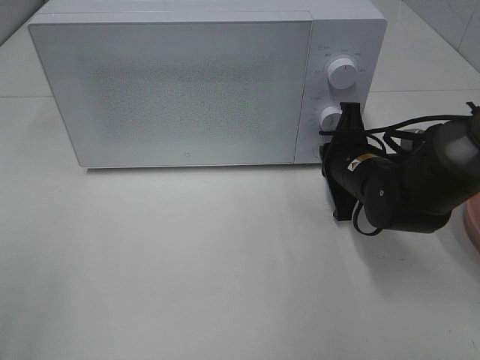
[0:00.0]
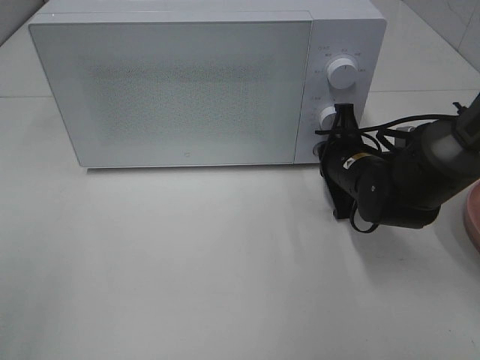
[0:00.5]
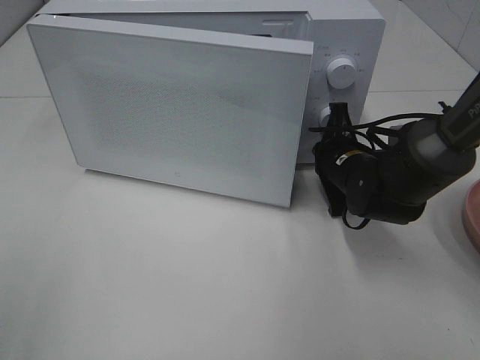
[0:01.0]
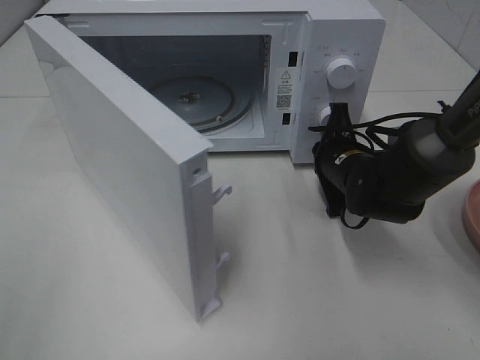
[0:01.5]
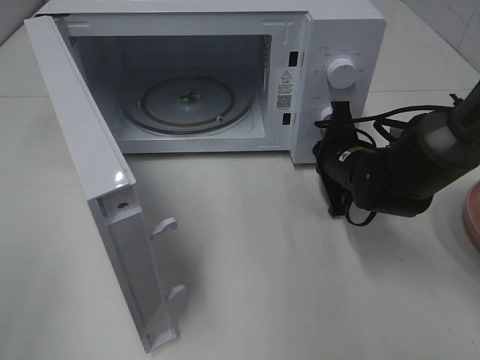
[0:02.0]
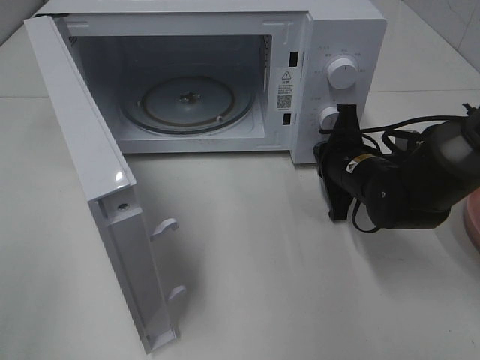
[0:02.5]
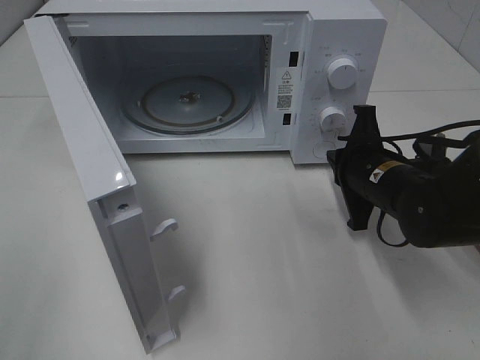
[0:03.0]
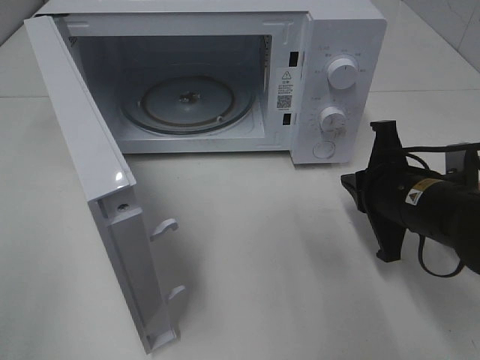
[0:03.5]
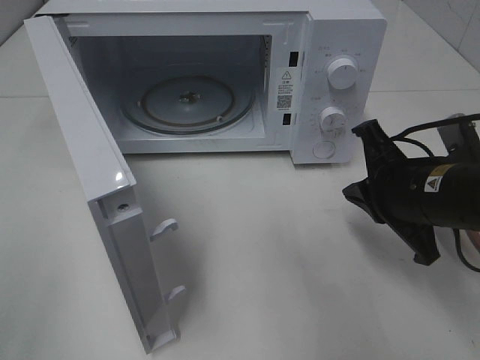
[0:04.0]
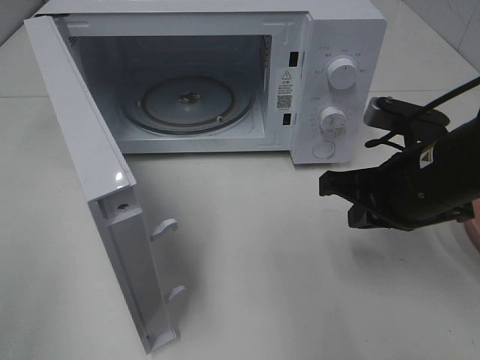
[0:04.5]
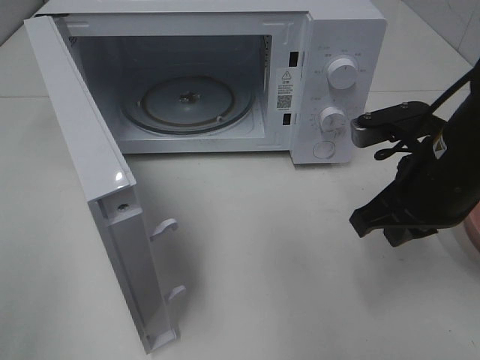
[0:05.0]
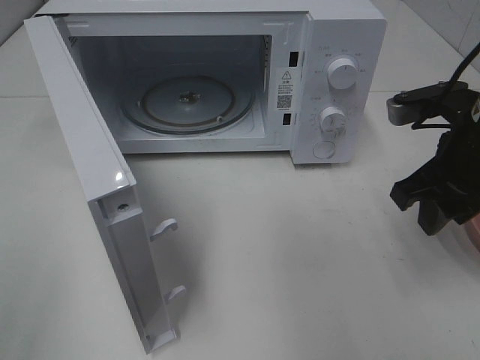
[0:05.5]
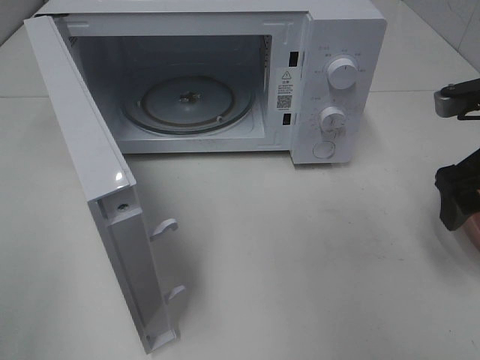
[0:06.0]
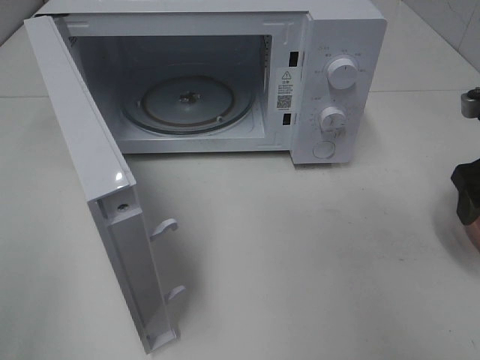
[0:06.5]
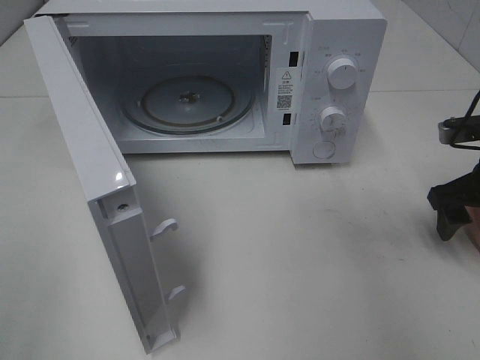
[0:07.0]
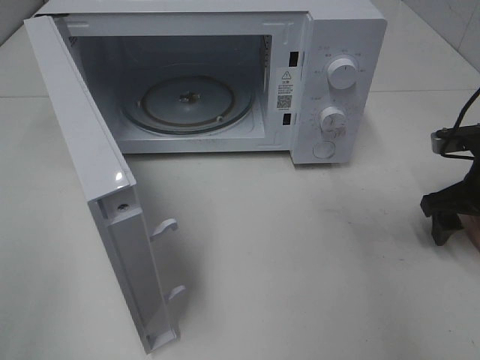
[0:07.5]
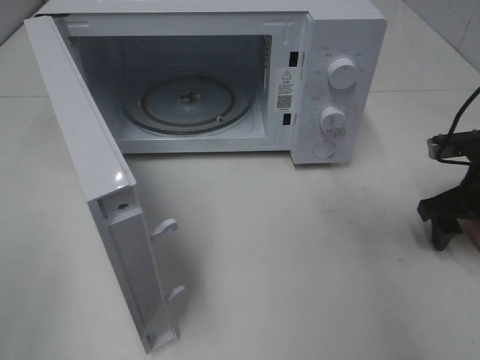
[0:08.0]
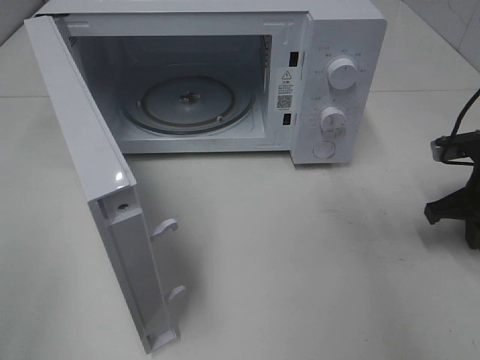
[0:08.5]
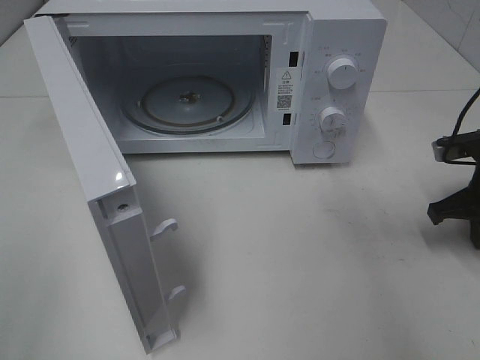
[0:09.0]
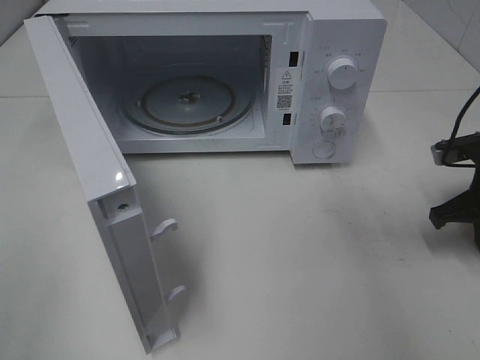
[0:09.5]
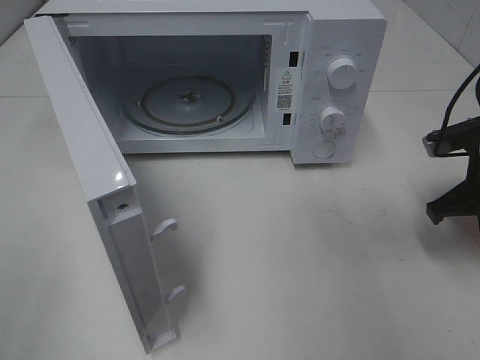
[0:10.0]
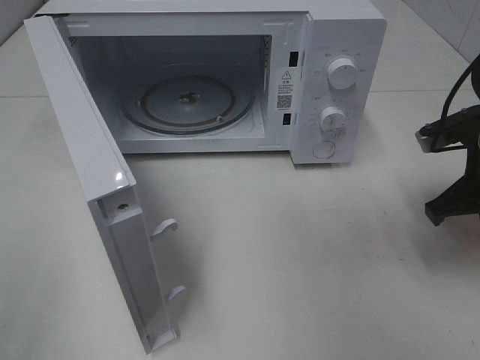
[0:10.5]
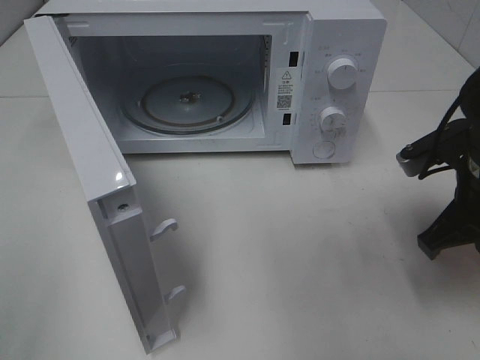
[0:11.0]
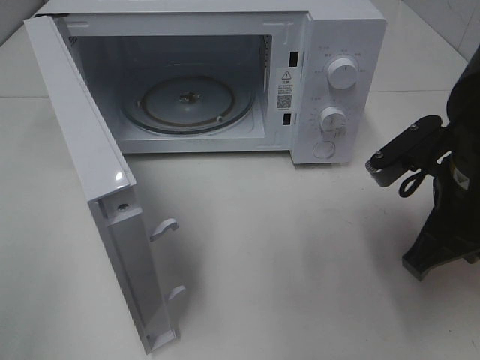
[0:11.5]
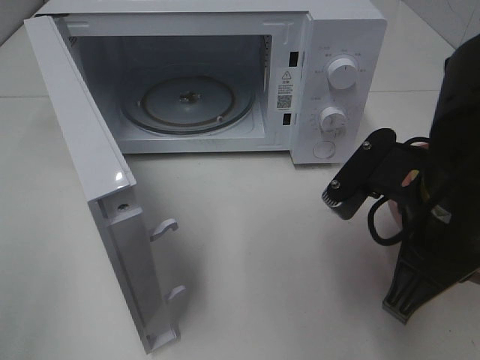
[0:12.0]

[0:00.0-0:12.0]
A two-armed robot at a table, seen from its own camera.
Task of the whole recording: Heat Sandwich.
Step, 0:00.0 to 0:03.0: Right hand: press the switch.
Step, 0:03.5 to 0:08.5: Right hand: grab the plate with the sandwich.
0:02.0 to 0:04.0: The right gripper heads backward and upward, covering some 15 cm.
0:04.0 to 0:06.0: The right gripper moves to the right and upward, some 10 cm, and opens.
0:06.0 to 0:08.0: The right gripper is displaced downward by roughly 10 cm.
0:08.0 to 0:10.0: The right gripper closes.
0:10.0 to 0:12.0: The right gripper goes approximately 20 cm to the left, backward and upward.

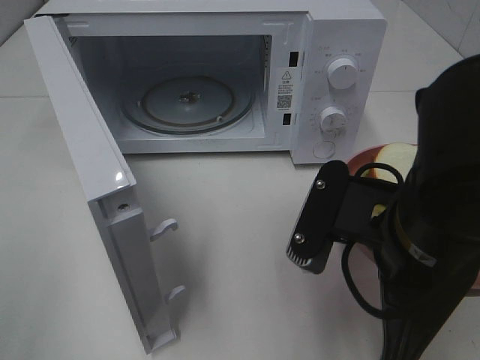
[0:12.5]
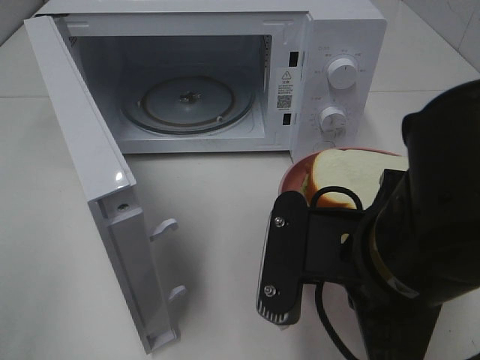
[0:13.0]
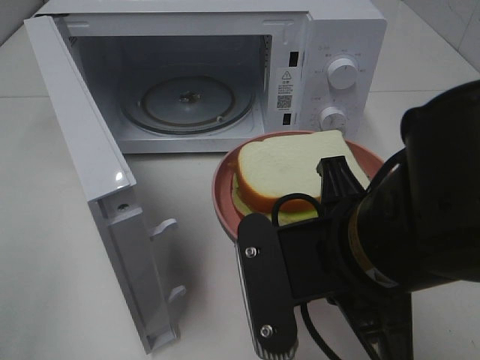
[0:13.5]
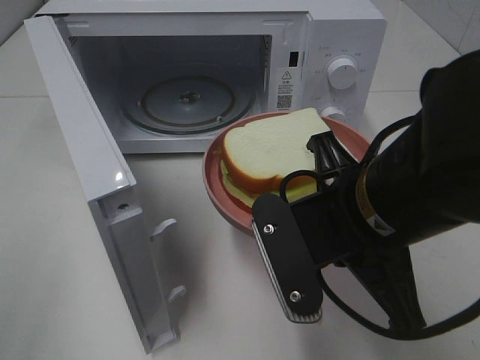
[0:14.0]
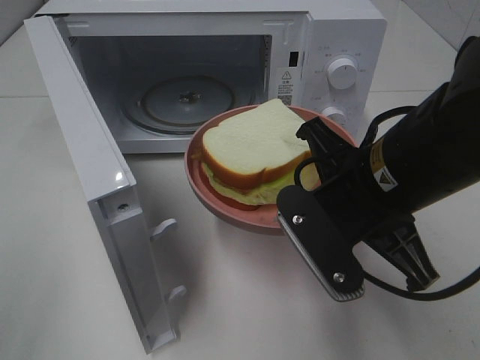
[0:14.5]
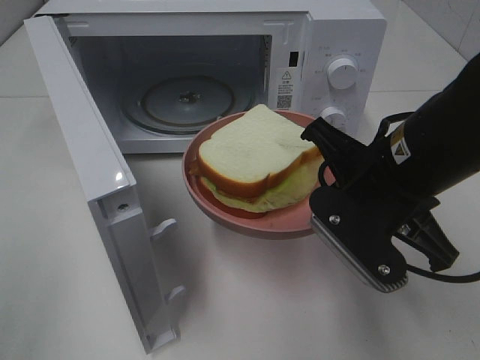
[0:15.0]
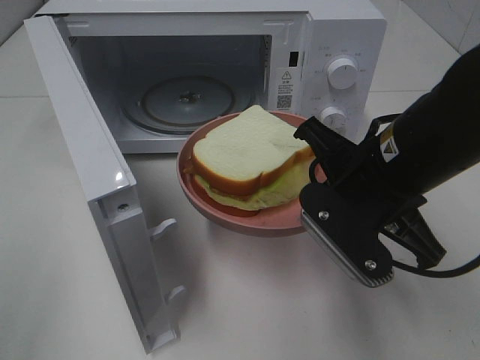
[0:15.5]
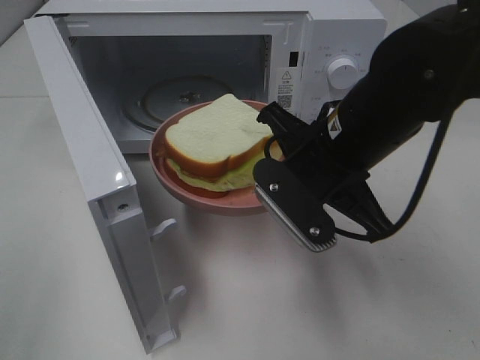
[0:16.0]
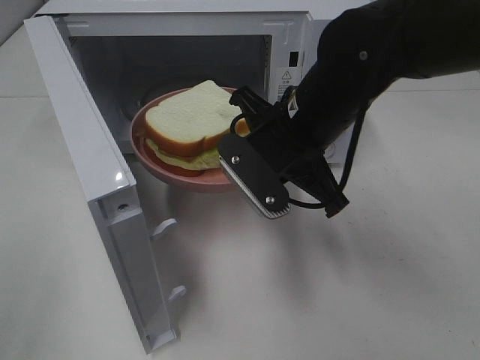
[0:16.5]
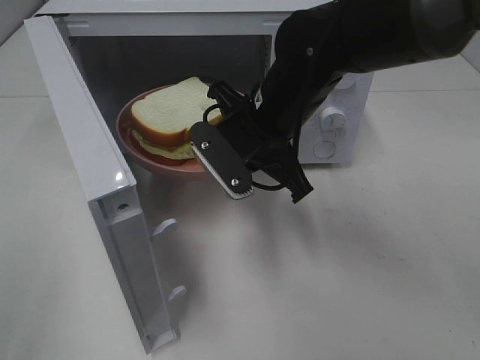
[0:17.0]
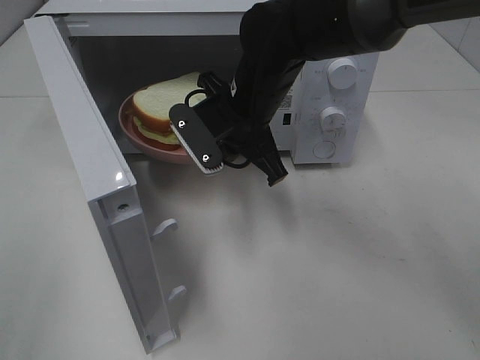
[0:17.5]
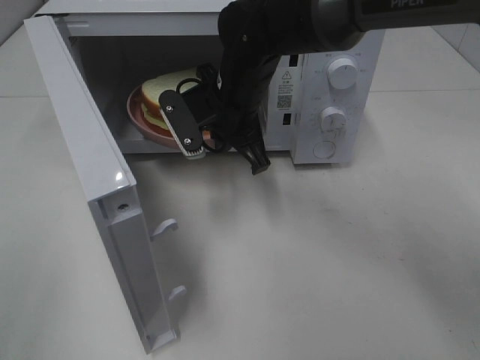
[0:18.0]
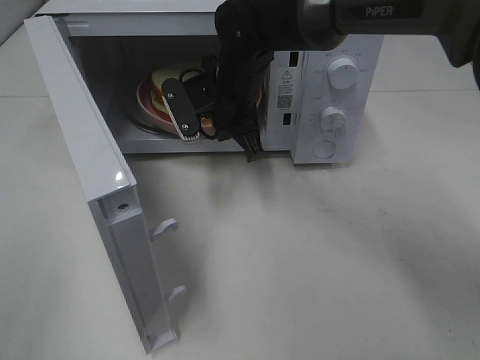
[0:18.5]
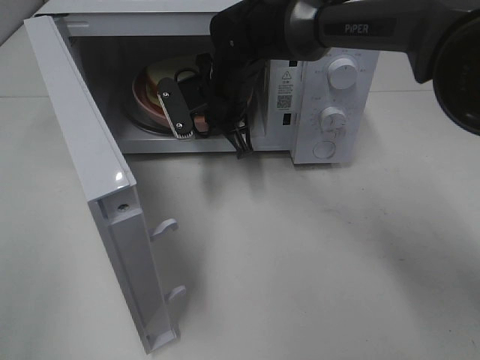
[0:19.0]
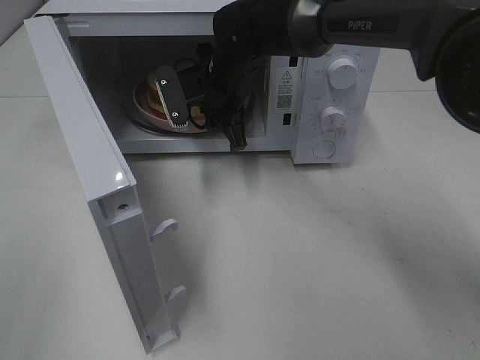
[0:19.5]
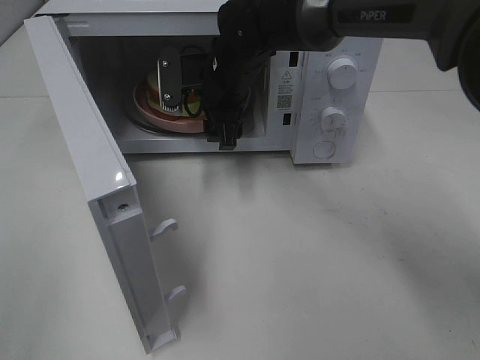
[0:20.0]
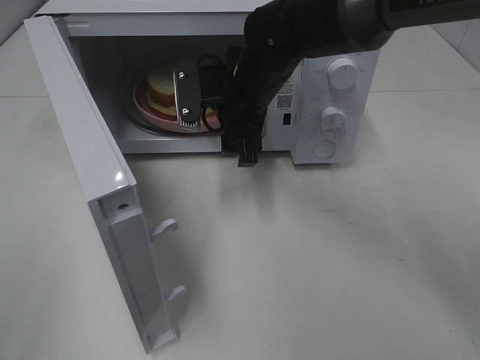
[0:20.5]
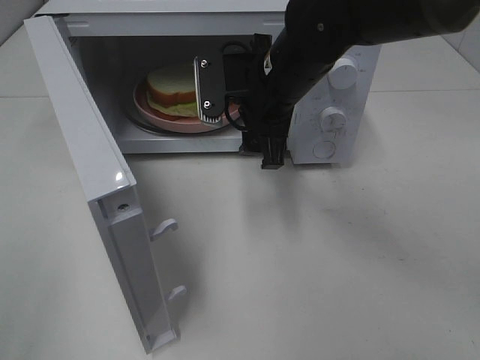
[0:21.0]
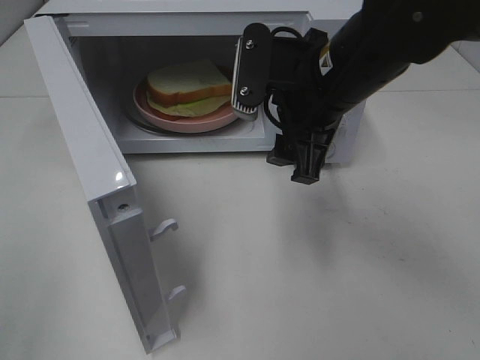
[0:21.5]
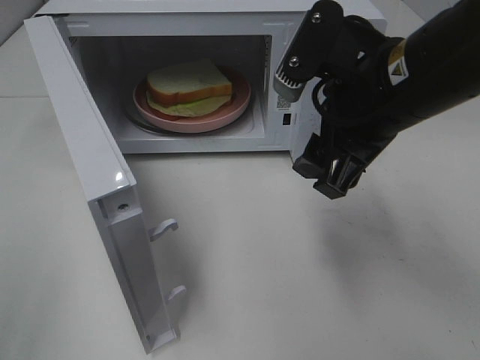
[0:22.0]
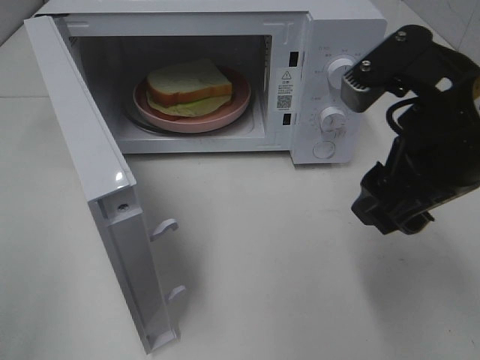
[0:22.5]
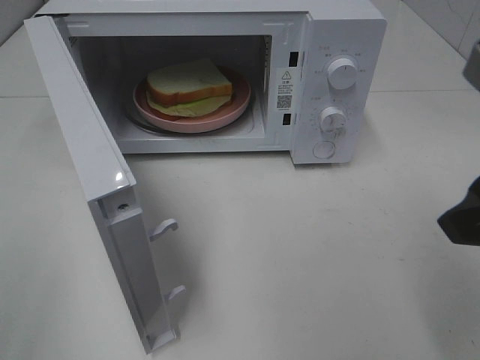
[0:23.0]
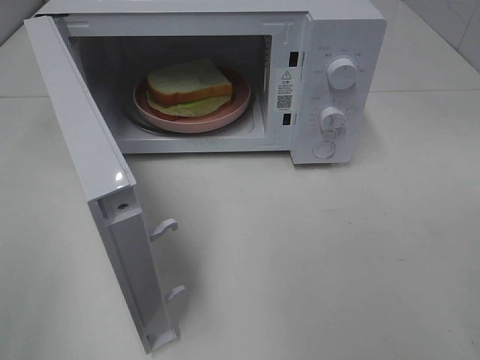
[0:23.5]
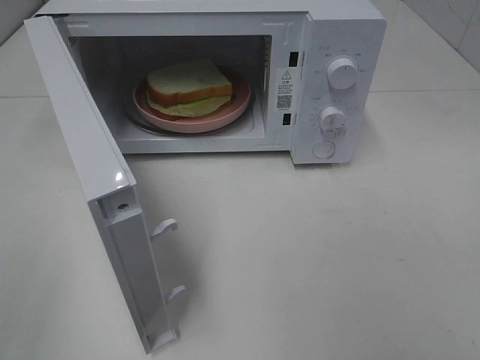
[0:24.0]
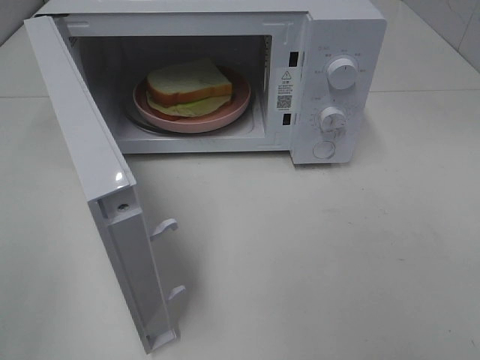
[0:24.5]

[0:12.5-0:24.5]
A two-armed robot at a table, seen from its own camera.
Task of the whole recording: Heat Sandwich.
Step, 0:12.5 to 0:20.0: Right hand: place the plate in the microwave.
0:12.5 to 0:14.5: The right gripper is displaced forward by some 5 cm.
0:14.5 to 0:16.5: The right gripper shifts about 10 cm forward.
0:16.5 to 0:18.5: The right gripper travels forward and to the left by roughly 15 cm.
0:18.5 to 0:20.5: The right gripper opens up.
0:20.5 to 0:22.5: The right gripper heads backward, to the right and upward, covering approximately 25 cm.
0:22.5 to 0:24.5: The right gripper travels backward and to the right by some 20 cm.

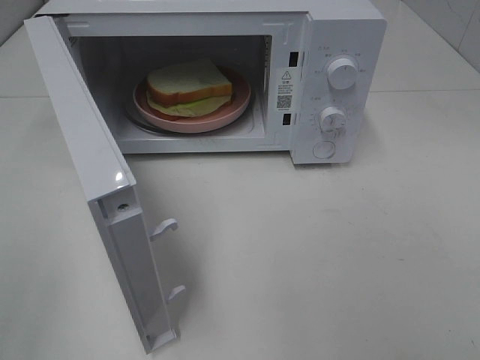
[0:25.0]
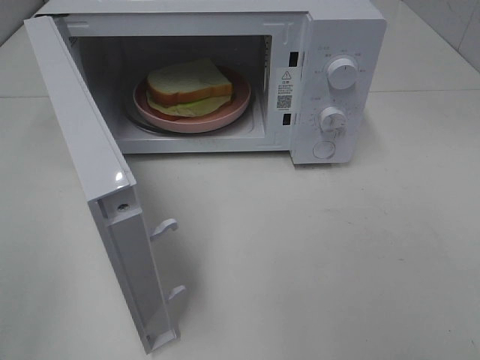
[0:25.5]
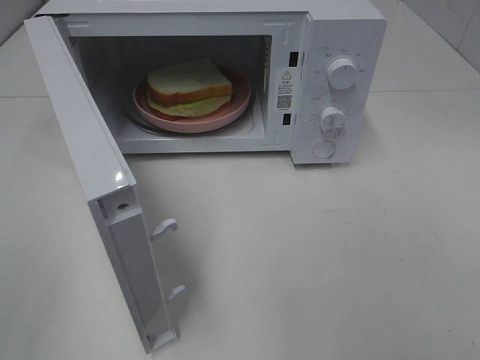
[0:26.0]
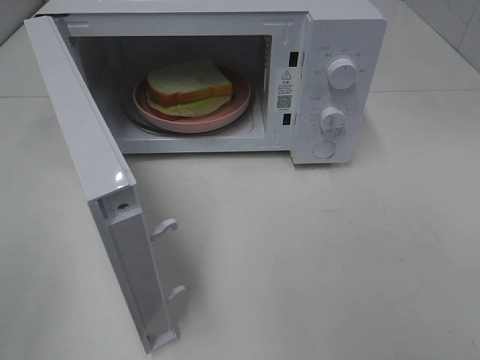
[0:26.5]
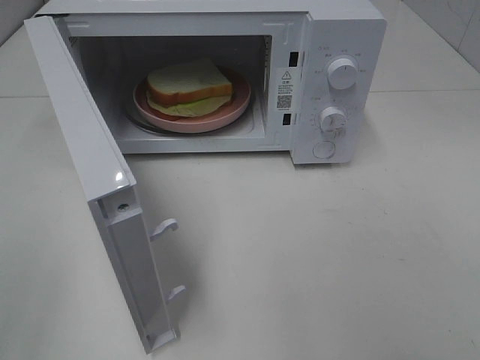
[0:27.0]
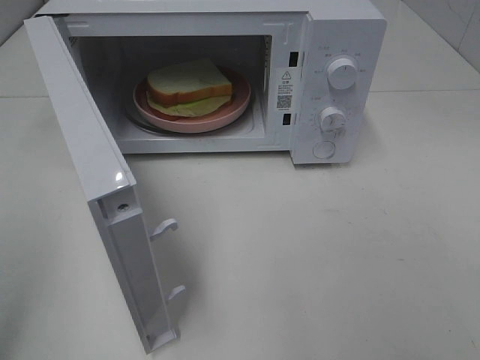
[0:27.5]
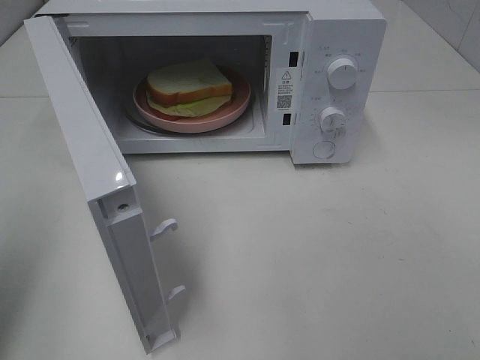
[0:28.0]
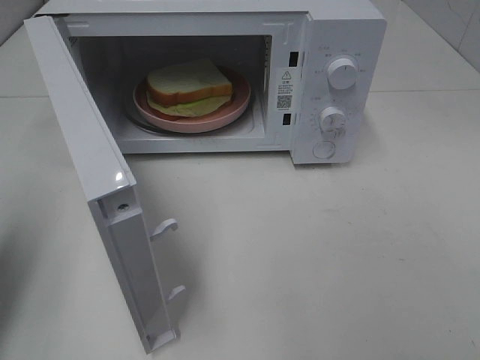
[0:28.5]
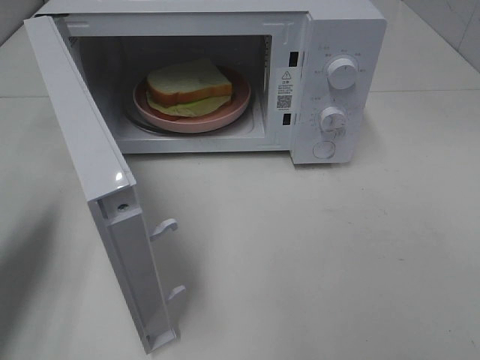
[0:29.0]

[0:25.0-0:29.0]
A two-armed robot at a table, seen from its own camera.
Task of the whole recording: Heat Sandwich.
0:25.0 to 0:27.0: Neither gripper changes place.
0:27.0 to 0:29.0: The left gripper heads forward and downward, covering roughly 25 cm, and closes.
